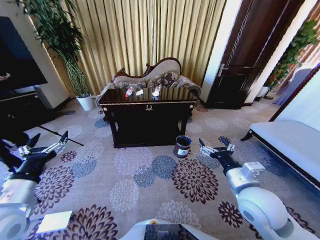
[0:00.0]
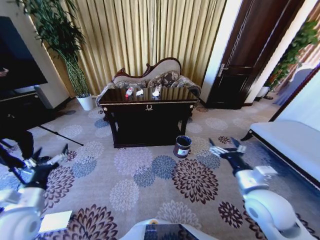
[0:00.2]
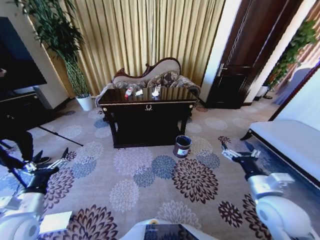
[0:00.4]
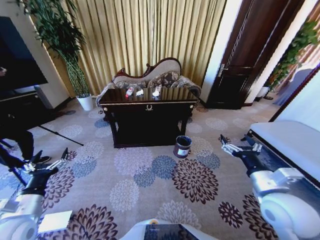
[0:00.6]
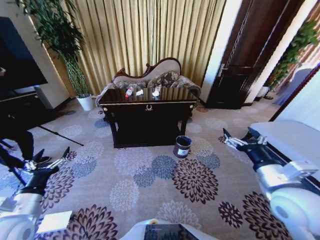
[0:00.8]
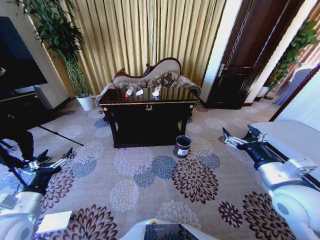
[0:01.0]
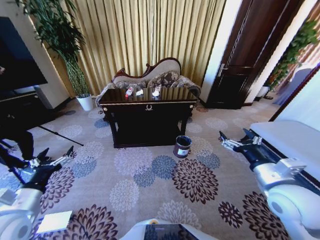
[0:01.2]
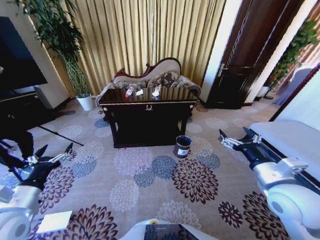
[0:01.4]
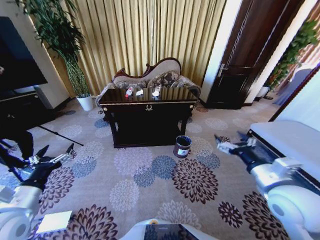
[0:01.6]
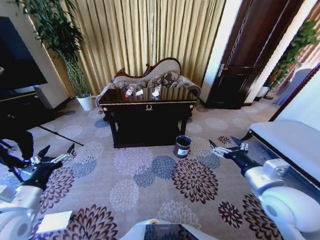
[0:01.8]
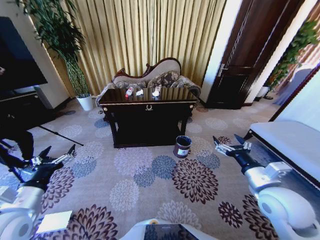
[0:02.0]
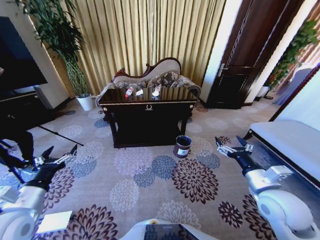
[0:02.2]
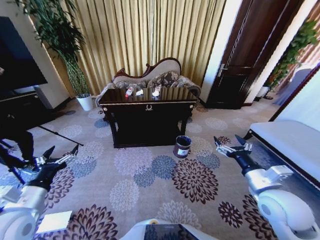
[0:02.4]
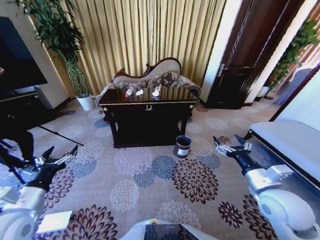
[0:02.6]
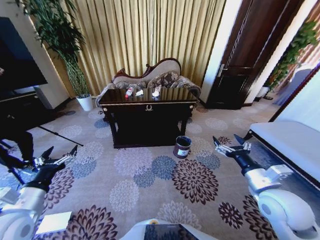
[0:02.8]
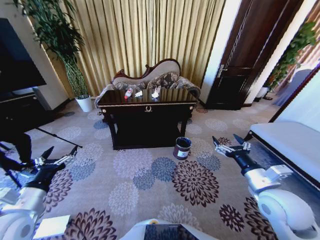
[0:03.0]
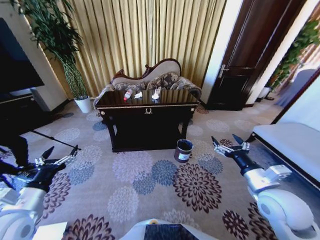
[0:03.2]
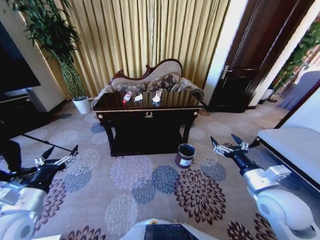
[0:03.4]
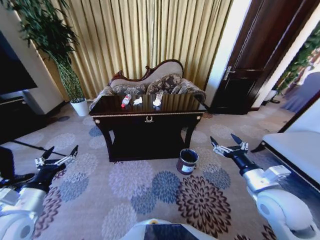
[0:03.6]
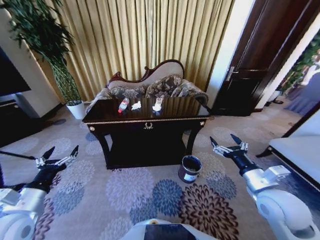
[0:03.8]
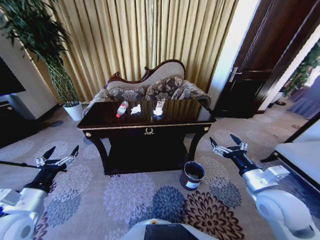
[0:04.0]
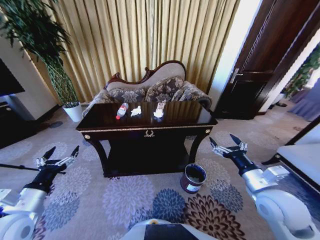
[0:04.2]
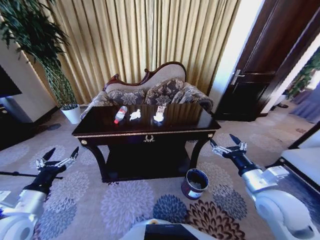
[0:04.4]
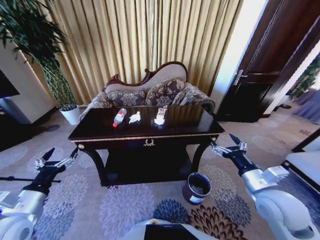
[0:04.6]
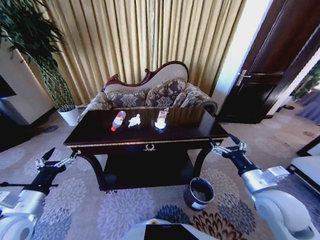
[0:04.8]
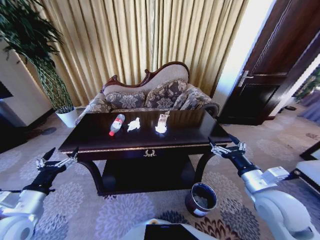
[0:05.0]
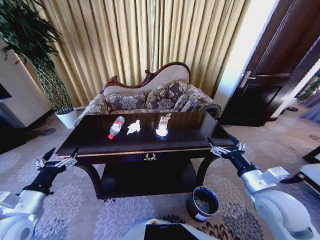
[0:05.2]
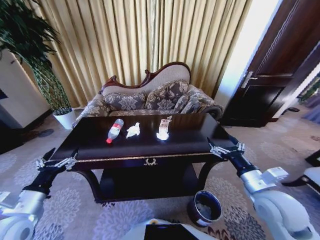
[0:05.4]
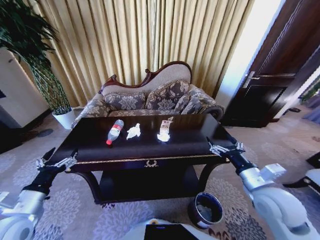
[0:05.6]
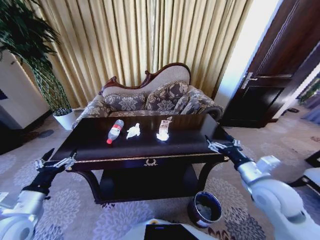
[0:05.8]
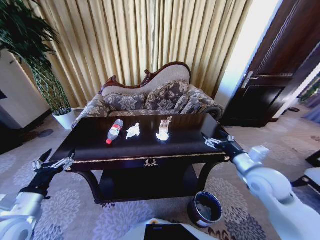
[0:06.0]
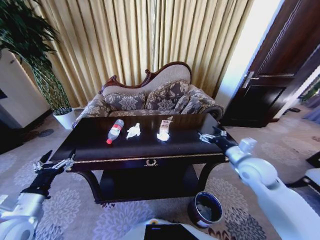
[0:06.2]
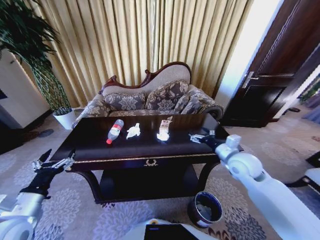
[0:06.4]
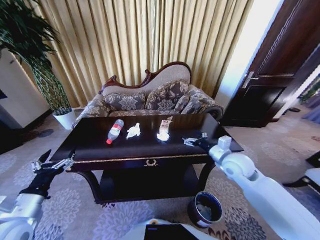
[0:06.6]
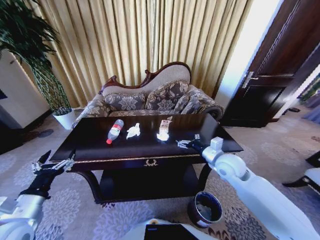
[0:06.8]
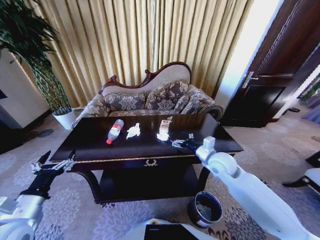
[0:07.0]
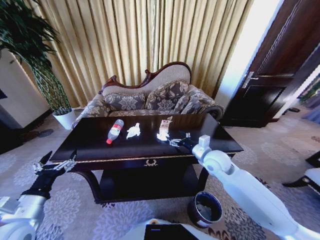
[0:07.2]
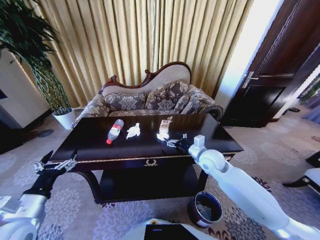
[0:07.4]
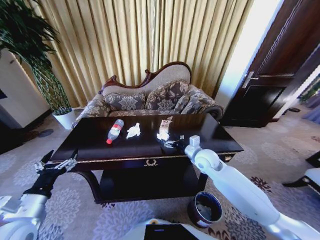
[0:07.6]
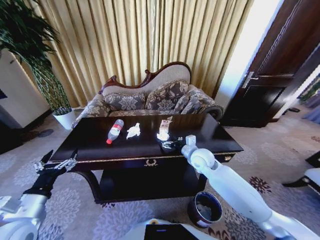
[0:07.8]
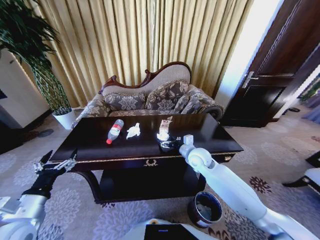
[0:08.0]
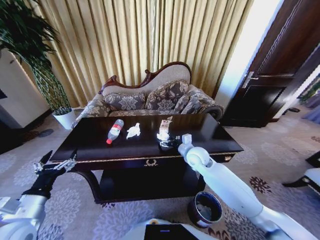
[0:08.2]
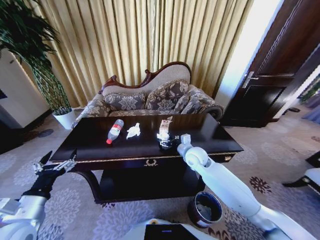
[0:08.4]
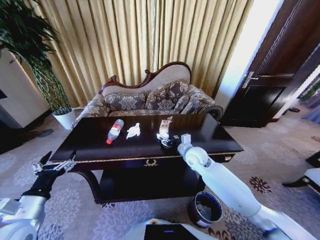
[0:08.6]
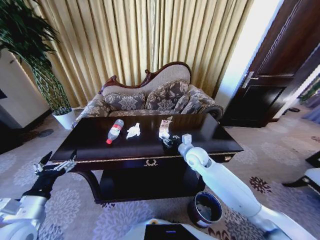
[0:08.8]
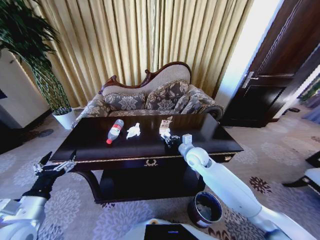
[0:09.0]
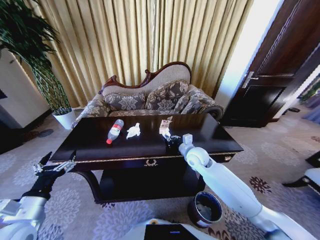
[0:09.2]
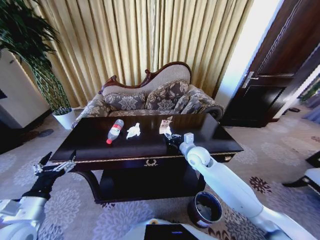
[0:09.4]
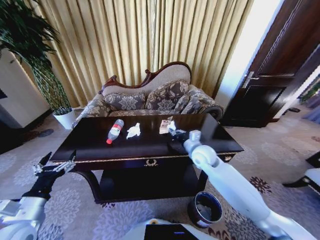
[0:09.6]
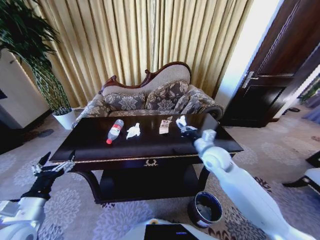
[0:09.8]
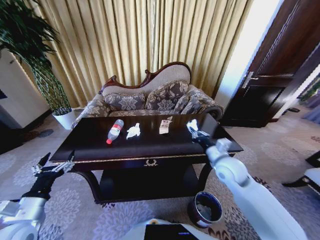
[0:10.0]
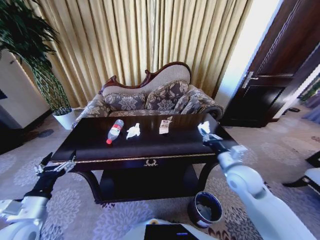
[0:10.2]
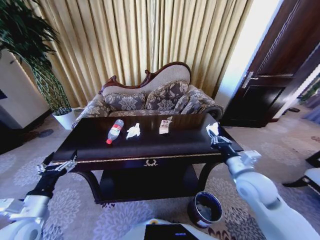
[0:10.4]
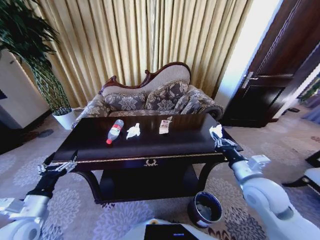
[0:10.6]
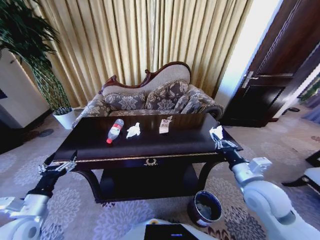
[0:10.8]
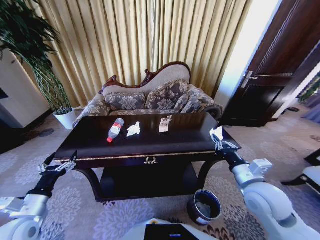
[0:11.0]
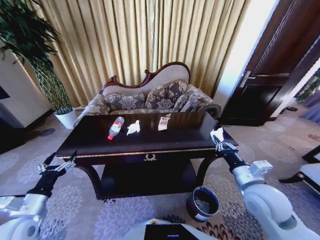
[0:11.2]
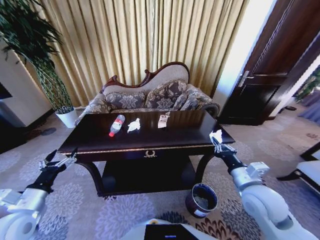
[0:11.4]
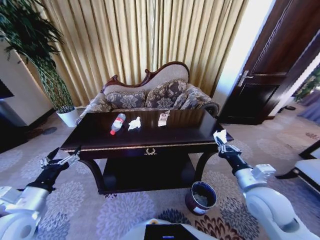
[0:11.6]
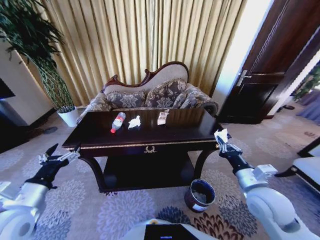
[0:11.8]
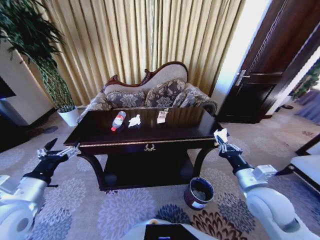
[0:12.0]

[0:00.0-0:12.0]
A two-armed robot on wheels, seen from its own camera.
Task of the whole recording: Move to the front of the table and place the trash on the table into the trash bin.
0:04.4 to 0:06.0: The right gripper heads forward, covering roughly 5 cm.
0:06.0 to 0:07.6: The right gripper travels to the left, forward and downward by some 20 cm.
0:07.6 to 0:09.0: The right gripper closes up.
0:09.0 to 0:10.4: The right gripper goes about 20 cm backward and to the right.
0:10.4 to 0:12.0: The left gripper heads upward, covering approximately 10 cm.

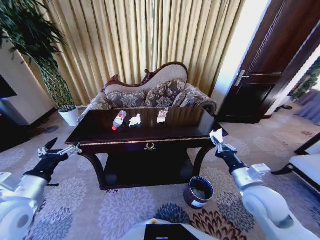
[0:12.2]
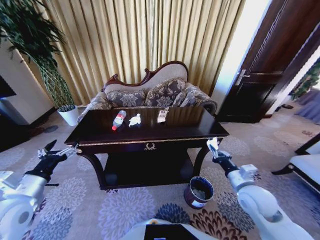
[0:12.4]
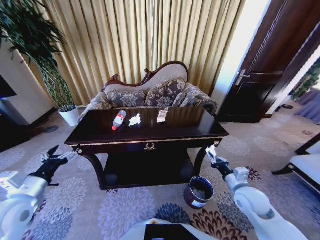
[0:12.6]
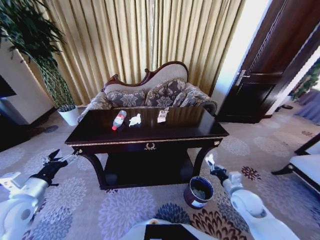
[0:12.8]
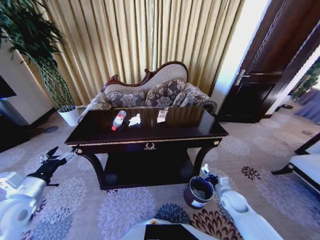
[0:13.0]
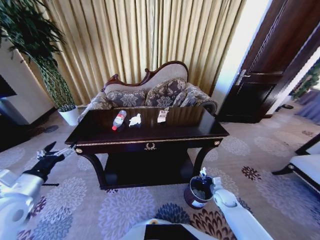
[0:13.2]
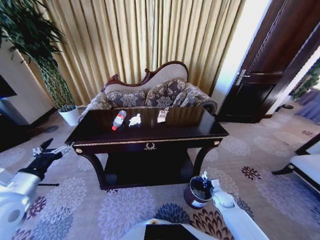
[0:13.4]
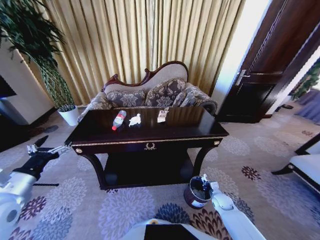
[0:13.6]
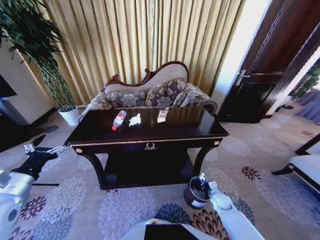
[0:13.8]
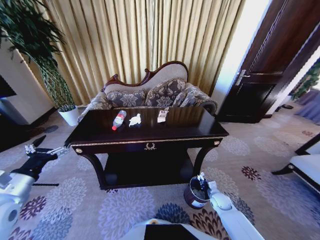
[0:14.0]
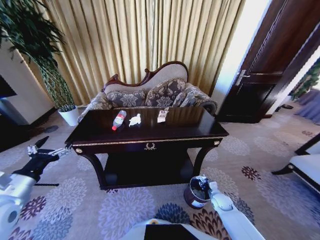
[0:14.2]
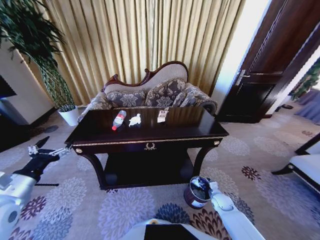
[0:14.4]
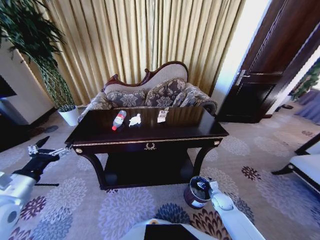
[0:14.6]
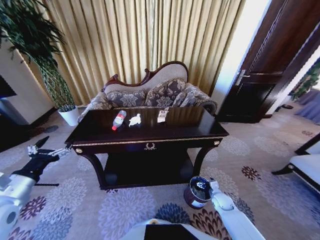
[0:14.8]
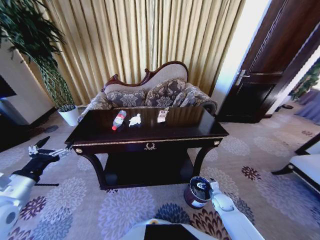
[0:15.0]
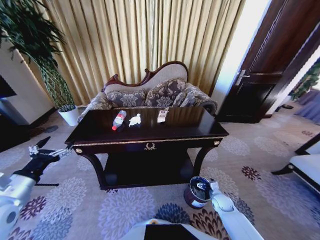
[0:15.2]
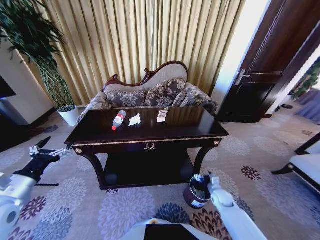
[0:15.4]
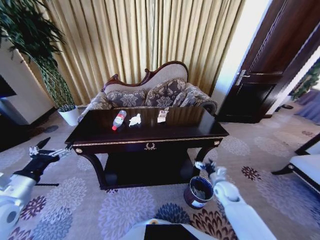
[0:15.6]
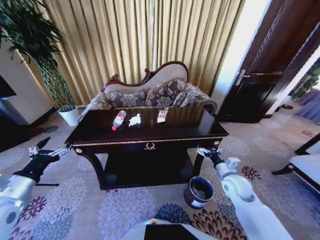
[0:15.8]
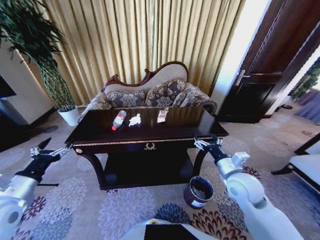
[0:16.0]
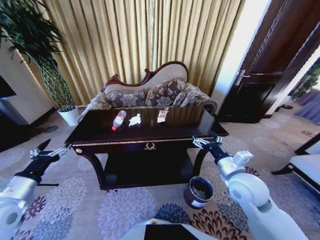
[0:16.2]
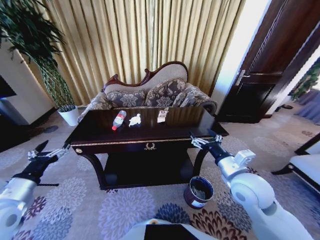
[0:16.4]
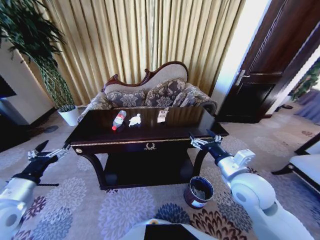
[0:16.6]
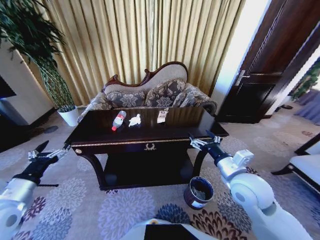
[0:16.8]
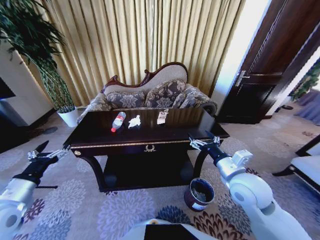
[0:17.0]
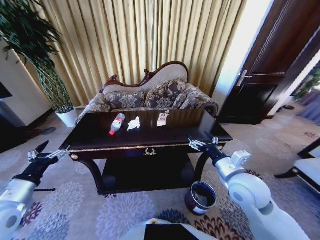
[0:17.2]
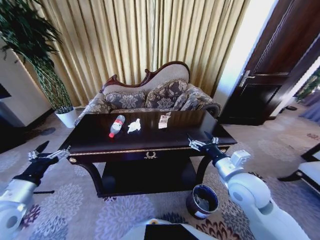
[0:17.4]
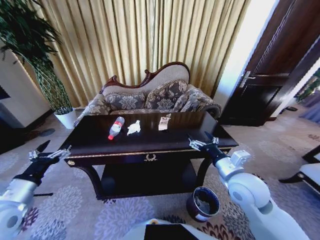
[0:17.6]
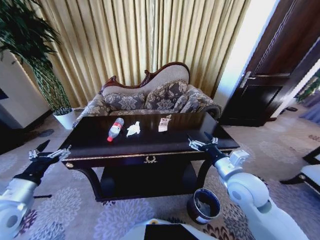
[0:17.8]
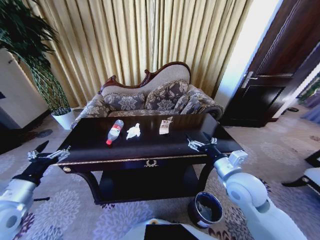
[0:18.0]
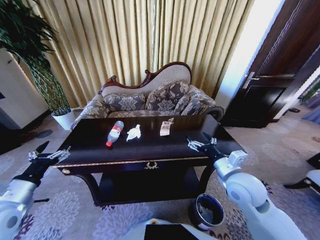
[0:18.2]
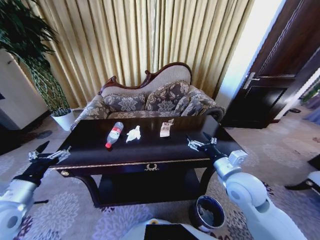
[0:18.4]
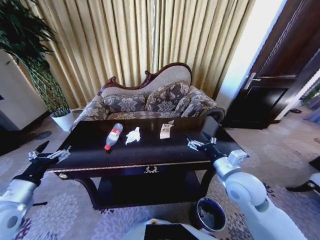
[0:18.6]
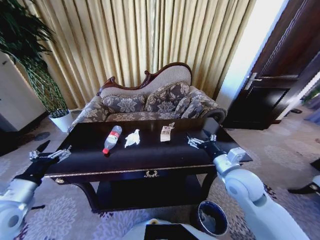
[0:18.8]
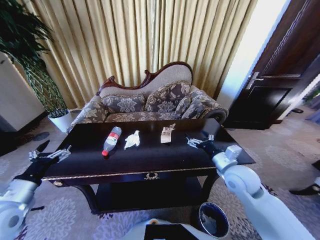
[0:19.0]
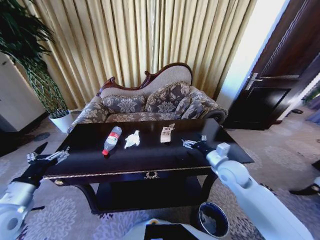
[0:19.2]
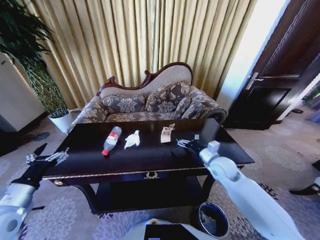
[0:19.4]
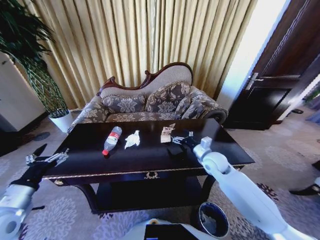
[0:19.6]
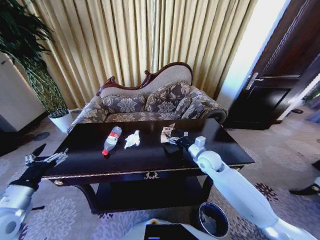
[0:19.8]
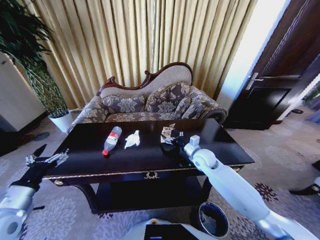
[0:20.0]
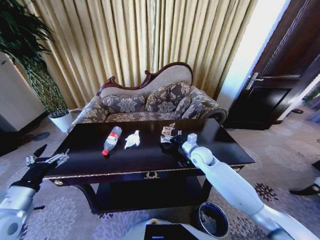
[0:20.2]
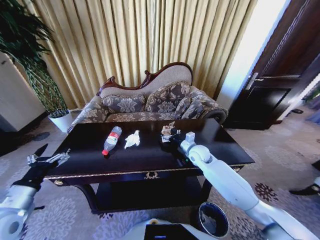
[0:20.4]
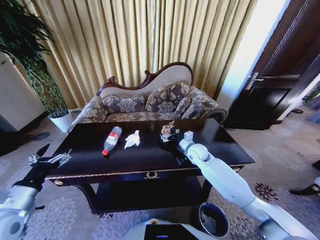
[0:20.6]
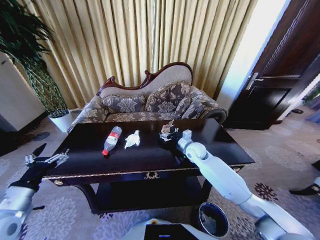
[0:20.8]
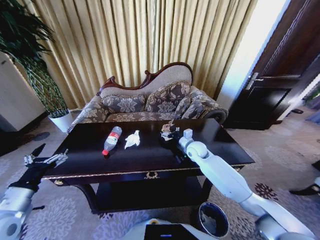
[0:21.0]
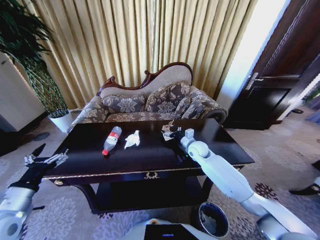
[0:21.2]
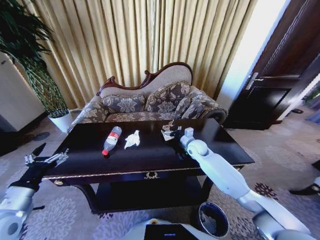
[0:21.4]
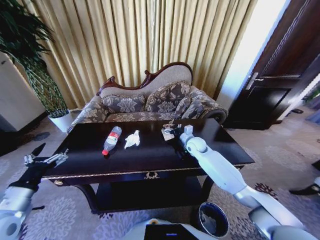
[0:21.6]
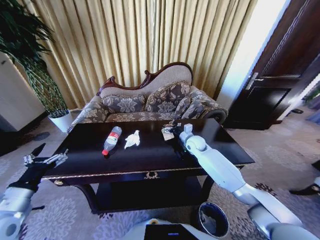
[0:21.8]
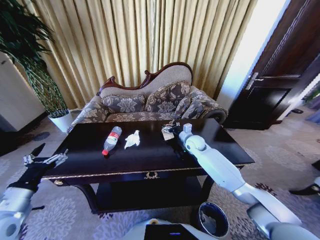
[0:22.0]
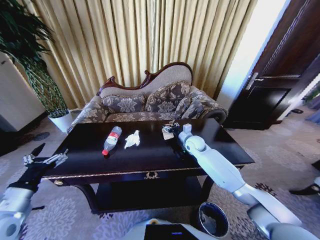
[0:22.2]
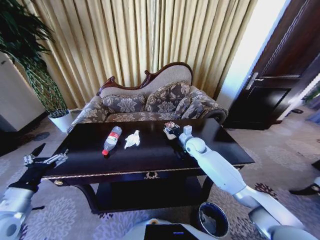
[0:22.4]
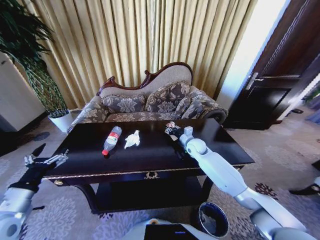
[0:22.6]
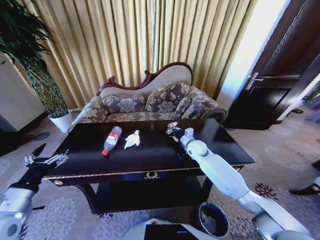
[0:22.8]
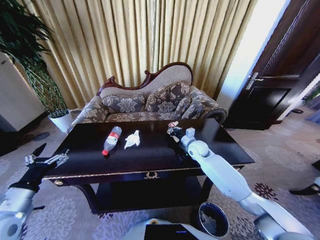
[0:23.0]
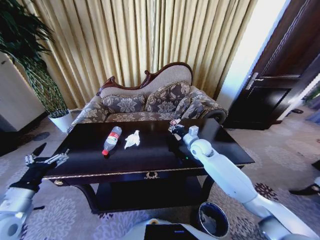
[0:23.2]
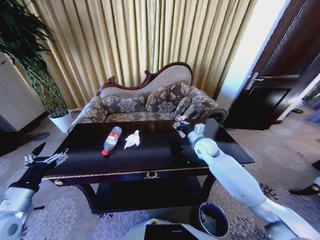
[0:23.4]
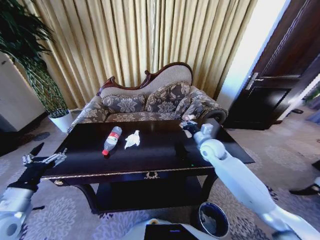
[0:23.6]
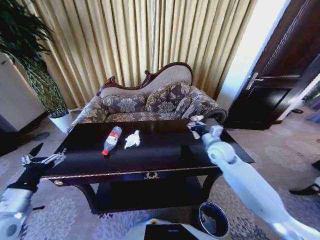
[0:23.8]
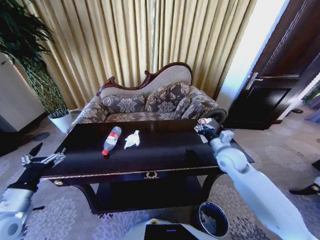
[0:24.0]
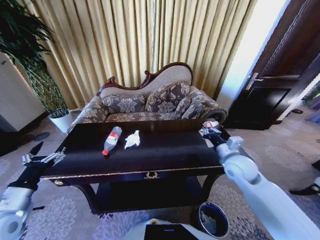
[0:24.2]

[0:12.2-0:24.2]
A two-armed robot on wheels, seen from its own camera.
Task of the whole recording: Move to the front of the table and place the trash on the table into the trash bin.
0:12.2 to 0:13.8: The right gripper moves downward, about 30 cm.
0:13.8 to 0:15.2: The right gripper opens its fingers.
0:15.2 to 0:16.6: The right gripper moves upward, roughly 35 cm.
0:18.2 to 0:19.8: The right gripper moves forward and downward, approximately 15 cm.
0:19.8 to 0:21.2: The right gripper is displaced forward by about 10 cm.
0:21.2 to 0:22.6: The right gripper closes up.
0:22.6 to 0:24.2: The right gripper is displaced backward, to the right and upward by approximately 20 cm.
